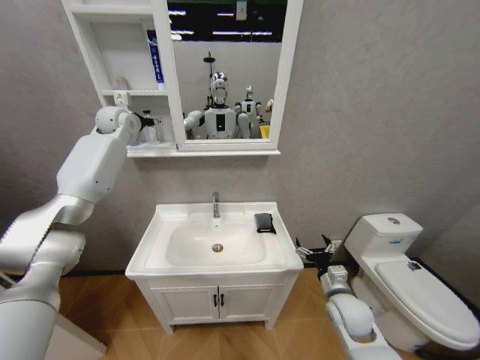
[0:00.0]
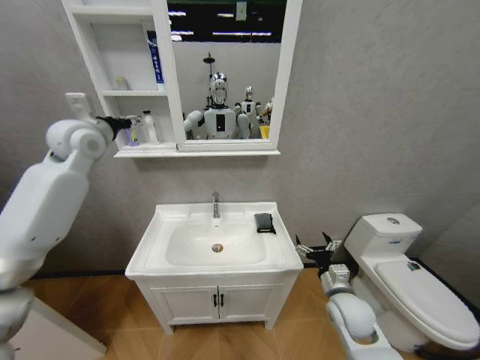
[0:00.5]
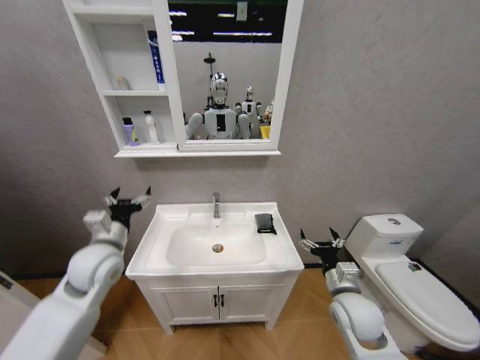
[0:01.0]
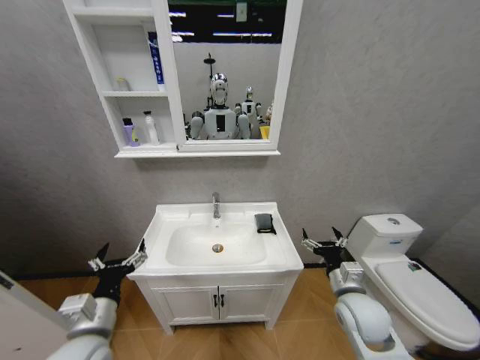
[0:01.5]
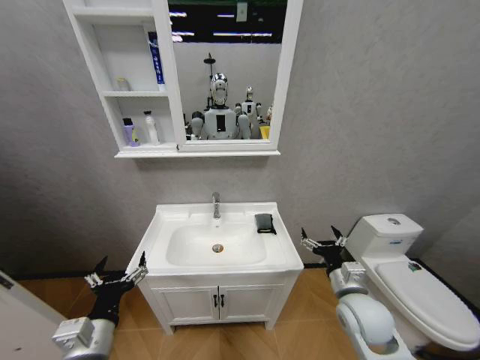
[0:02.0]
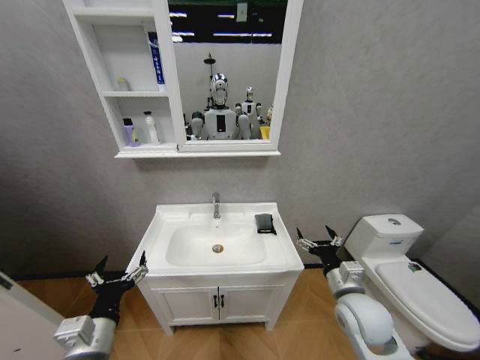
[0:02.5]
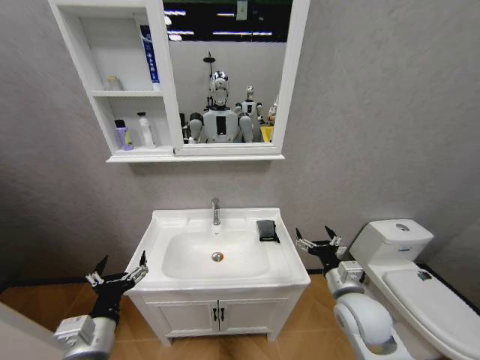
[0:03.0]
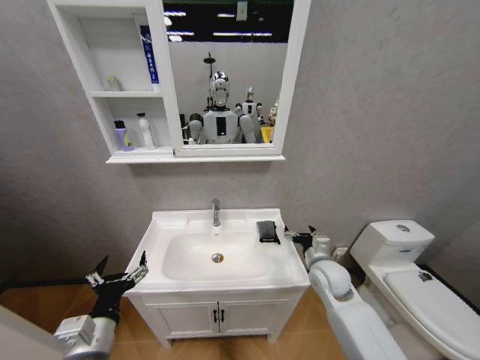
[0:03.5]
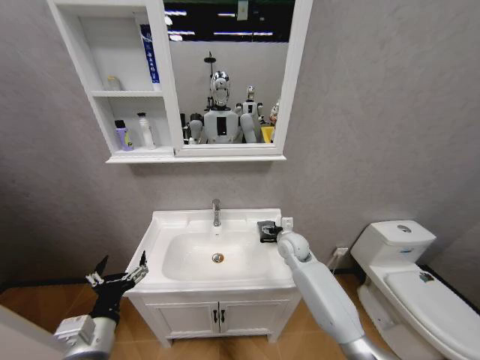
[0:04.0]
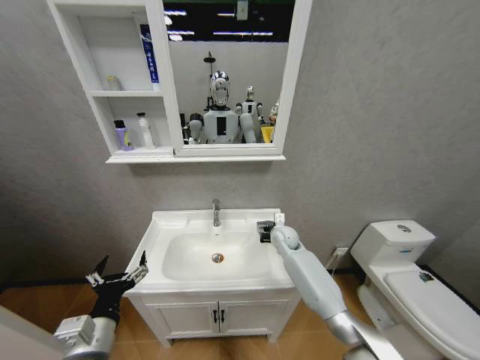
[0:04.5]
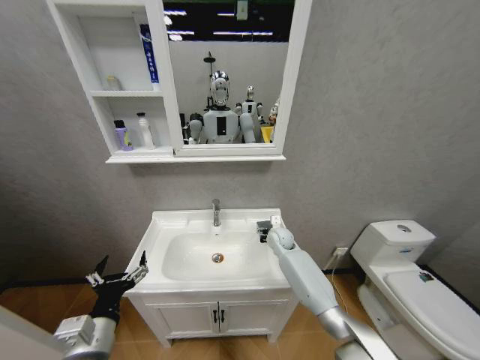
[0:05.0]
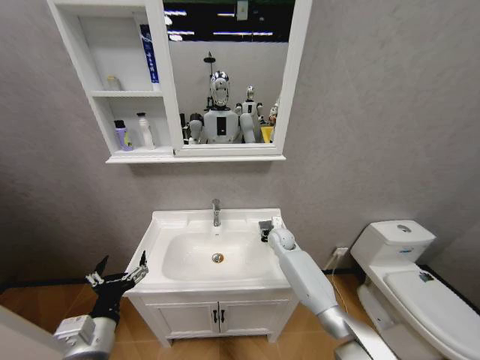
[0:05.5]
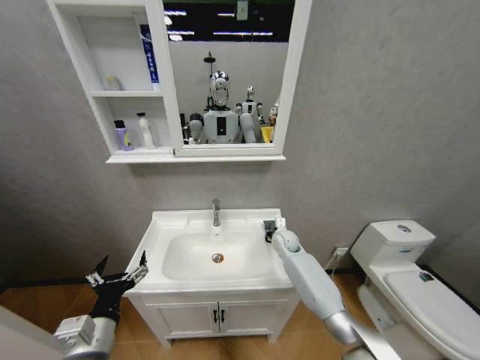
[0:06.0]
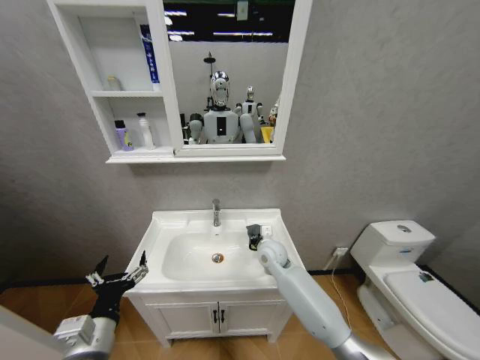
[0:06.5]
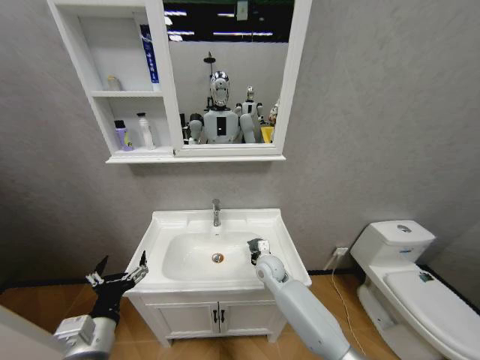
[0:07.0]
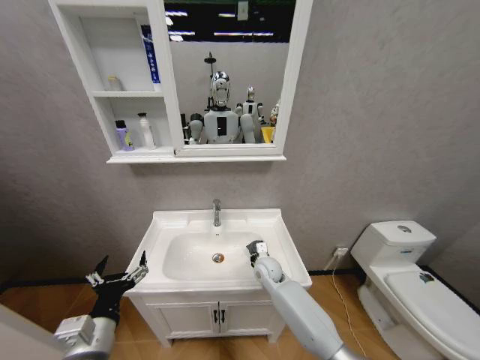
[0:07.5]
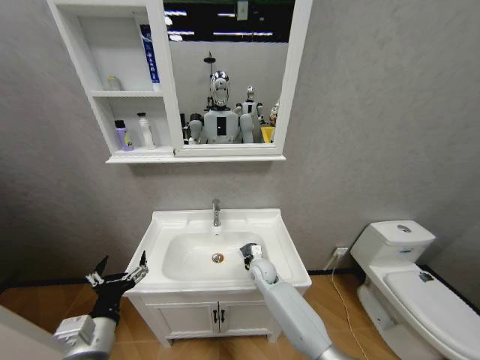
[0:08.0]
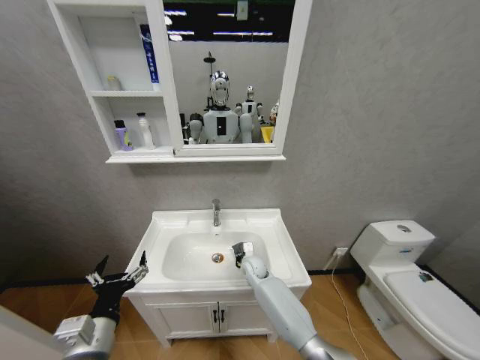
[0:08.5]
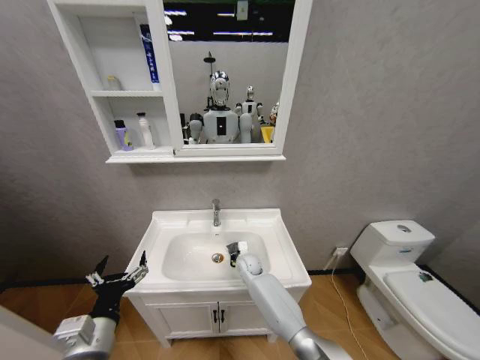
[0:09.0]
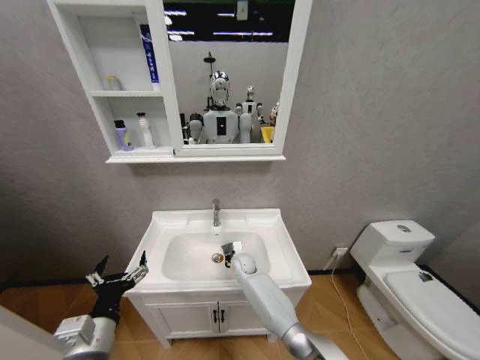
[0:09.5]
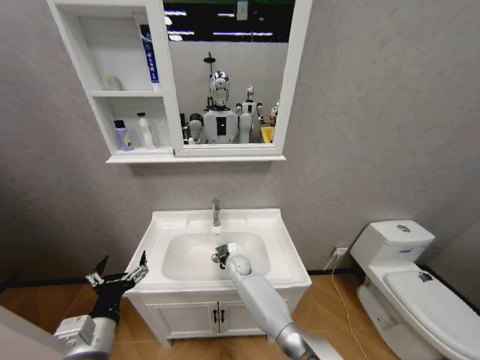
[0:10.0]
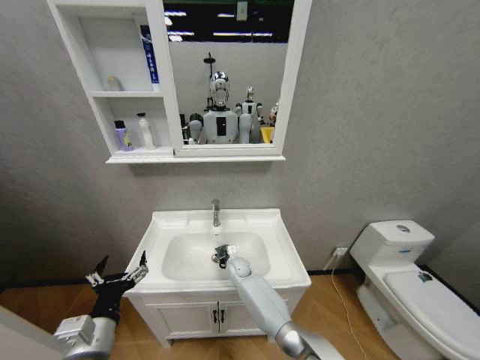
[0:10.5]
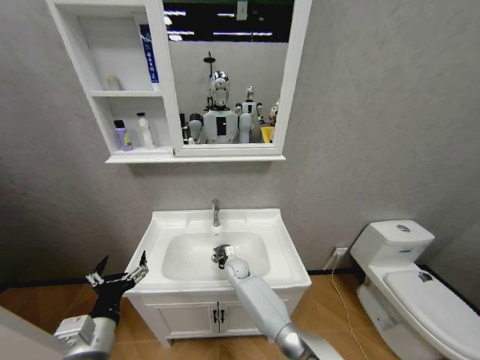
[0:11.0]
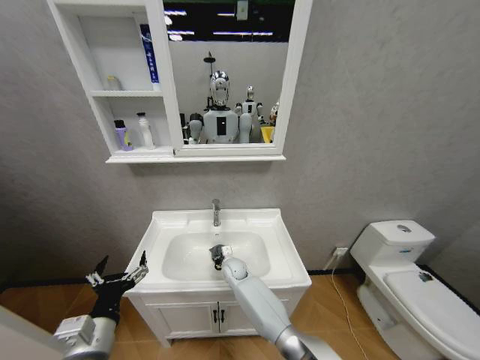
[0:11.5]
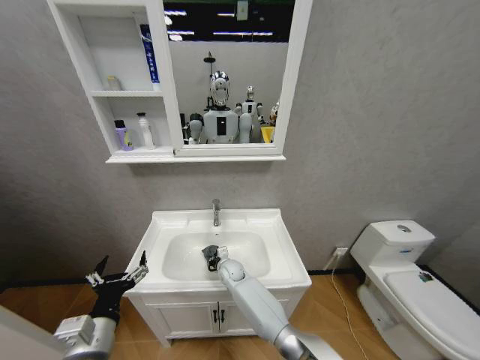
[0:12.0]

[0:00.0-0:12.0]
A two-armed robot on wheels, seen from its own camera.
Task of the whole recording: Move facial cleanser and shampoo from washbasin to cabinet, then wipe washbasin with towel.
0:00.0 to 0:02.0: The left gripper heads backward and downward, covering roughly 60 cm. Meanwhile the right gripper moves upward, approximately 5 cm.
0:02.0 to 0:04.0: The right gripper is displaced forward and to the left by approximately 20 cm.
0:04.0 to 0:06.0: The right gripper goes roughly 10 cm forward and downward, and closes up.
0:06.0 to 0:08.0: The right gripper heads to the left, backward and downward, covering roughly 15 cm.
0:08.0 to 0:10.0: The right gripper is displaced to the left by approximately 10 cm.
0:10.0 to 0:12.0: The grippers make only small movements.

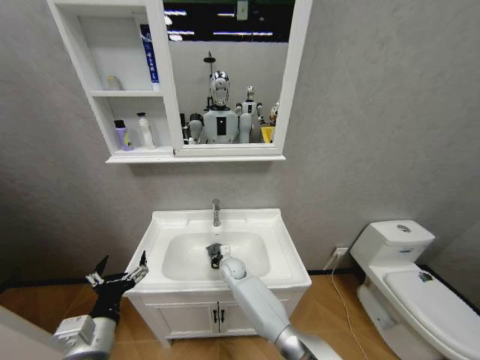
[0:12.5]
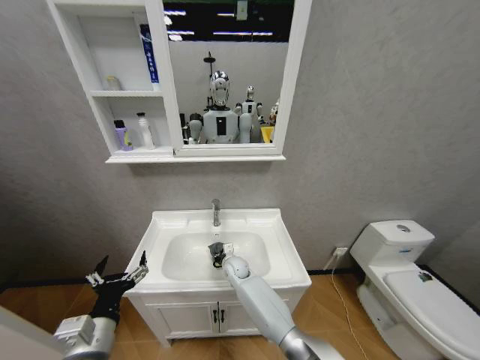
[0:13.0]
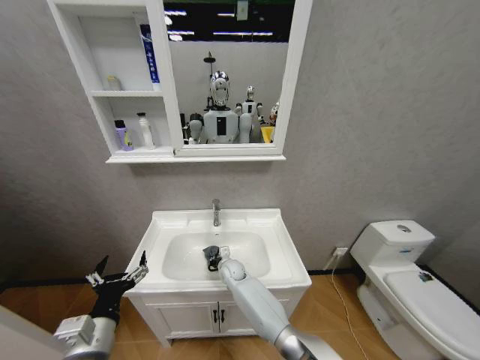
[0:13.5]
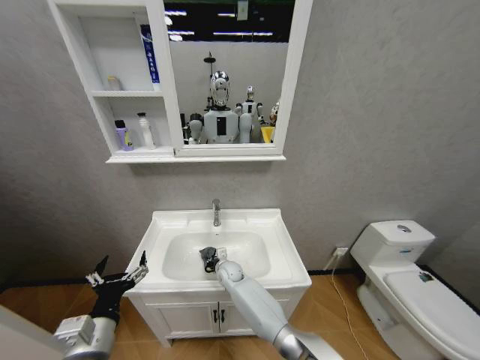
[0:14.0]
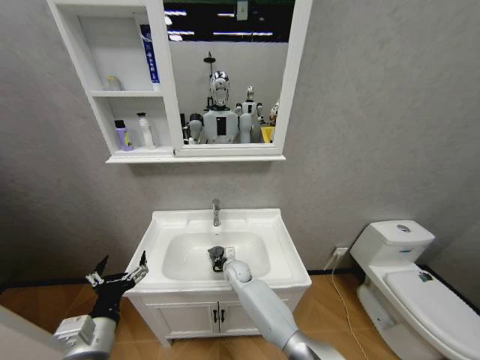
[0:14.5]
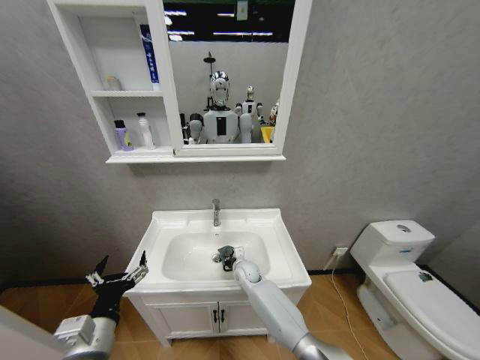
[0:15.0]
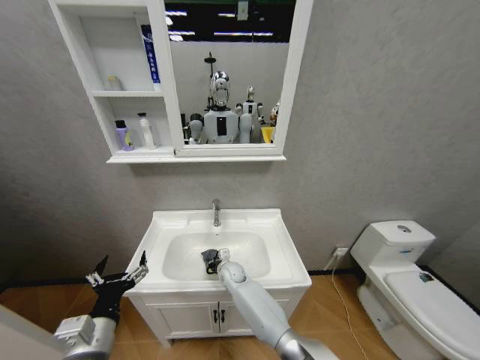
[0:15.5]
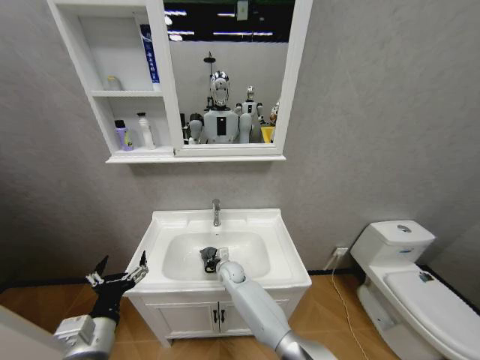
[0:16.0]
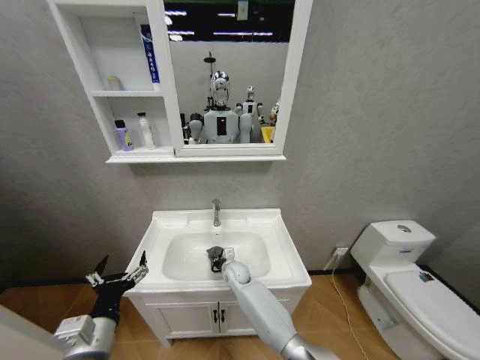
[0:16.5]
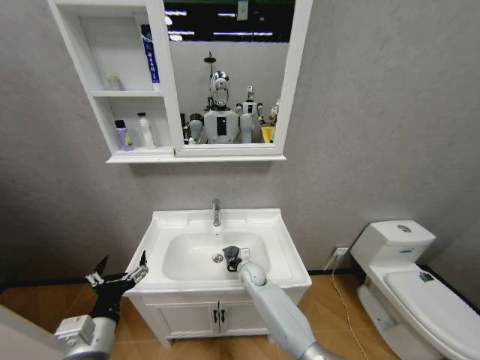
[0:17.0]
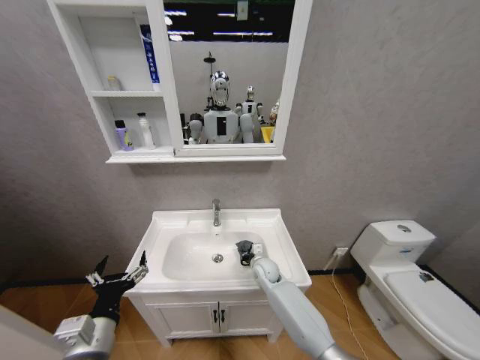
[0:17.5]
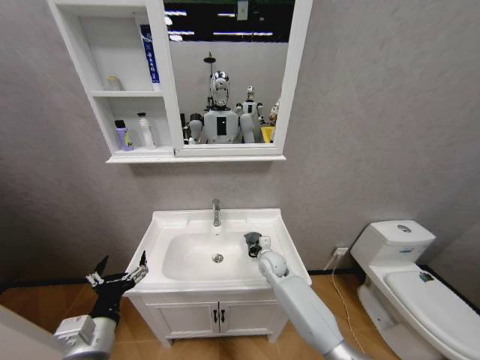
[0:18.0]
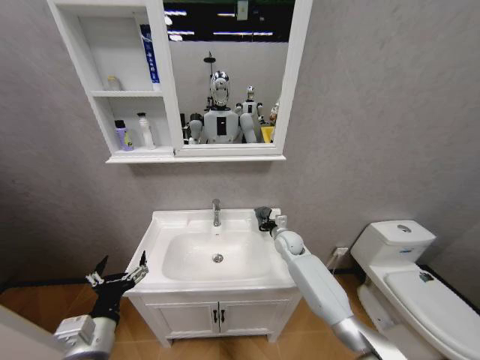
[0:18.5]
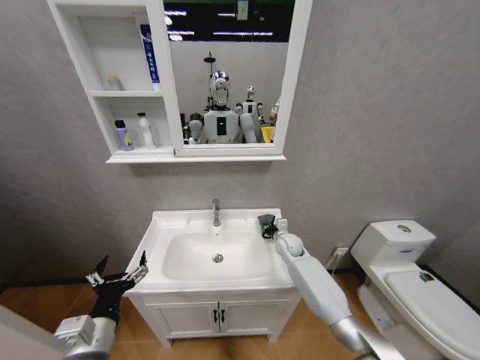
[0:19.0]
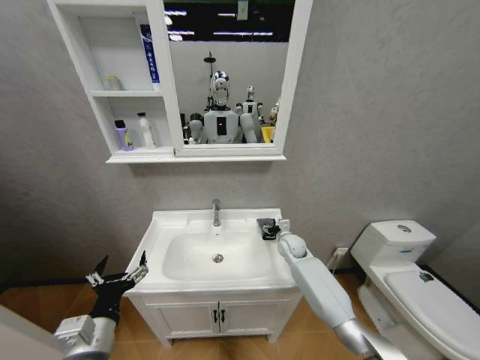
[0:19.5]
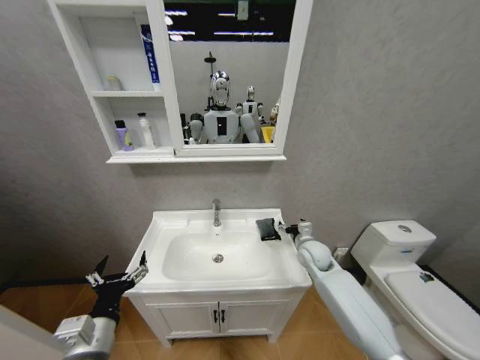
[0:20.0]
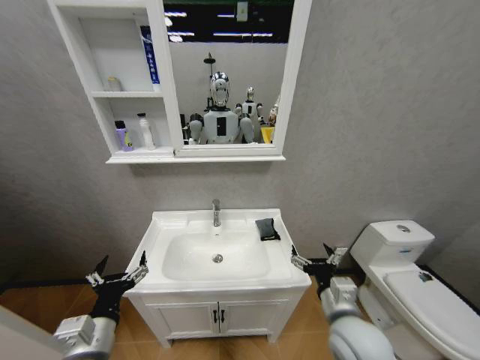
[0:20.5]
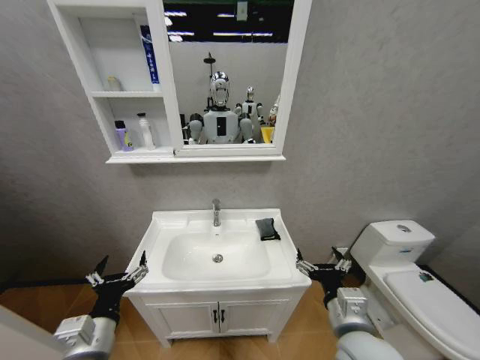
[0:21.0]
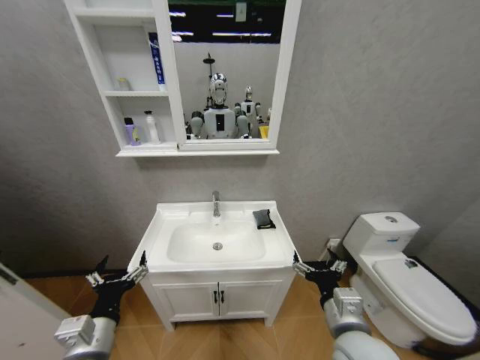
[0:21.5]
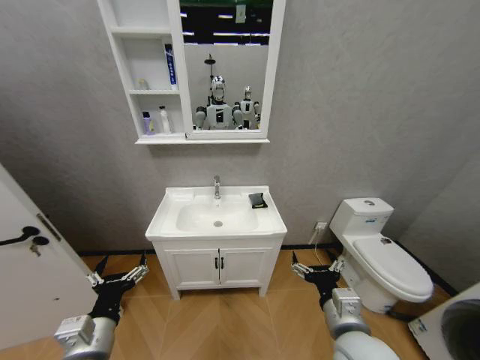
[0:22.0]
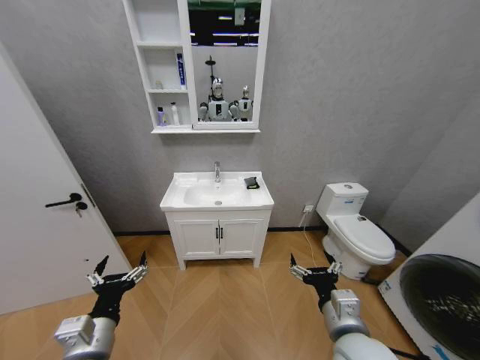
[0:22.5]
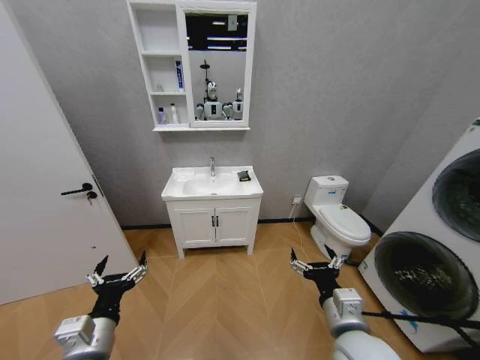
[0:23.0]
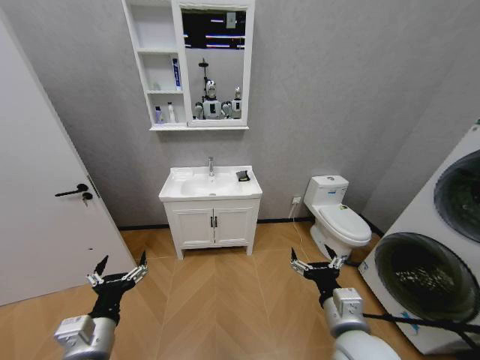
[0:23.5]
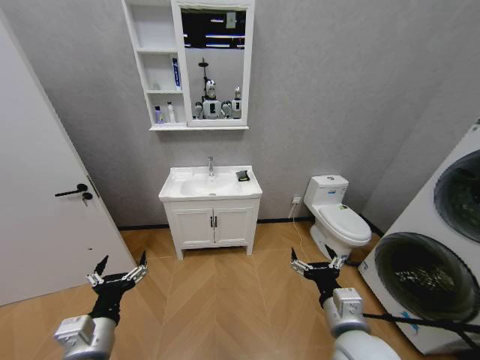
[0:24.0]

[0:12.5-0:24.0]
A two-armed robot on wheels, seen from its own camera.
Task of the whole recording: Move facial cleanser and shampoo from washbasin to cabinet, then wipe washbasin with towel.
0:12.5 to 0:16.5: There are only small adjustments of the grippers.
0:16.5 to 0:18.5: The right gripper moves to the right and upward, roughly 20 cm.
0:18.5 to 0:20.0: The right gripper moves to the right, roughly 5 cm, and opens its fingers.
0:20.0 to 0:22.0: The right gripper is displaced backward by approximately 30 cm.
